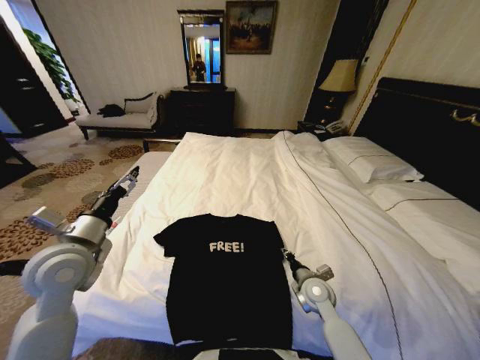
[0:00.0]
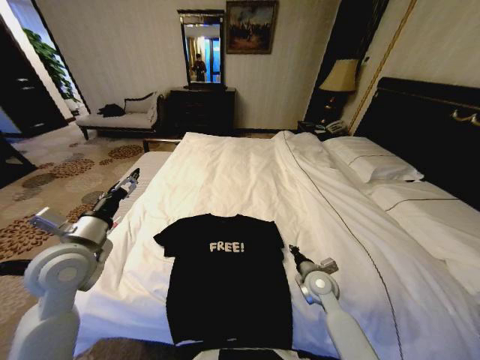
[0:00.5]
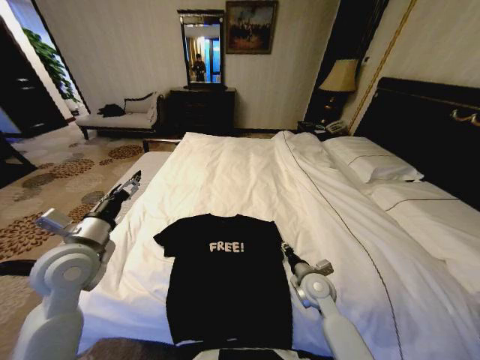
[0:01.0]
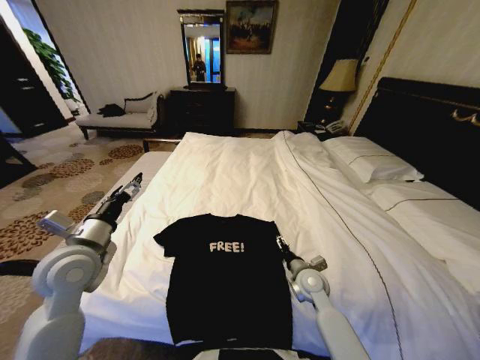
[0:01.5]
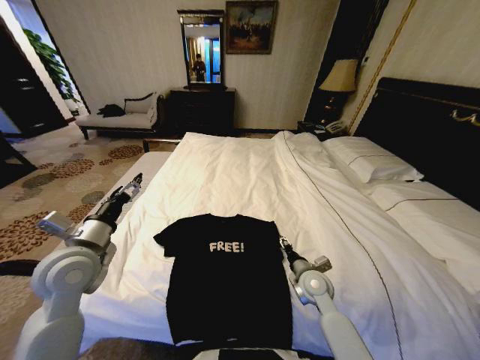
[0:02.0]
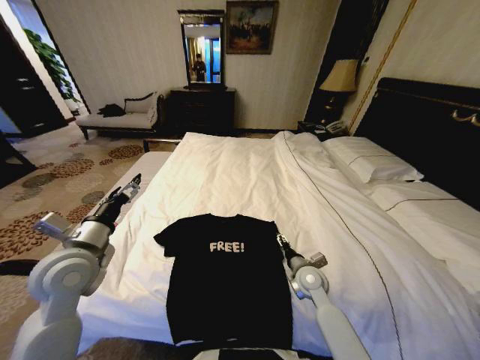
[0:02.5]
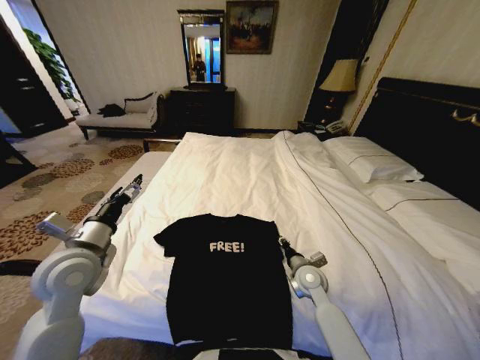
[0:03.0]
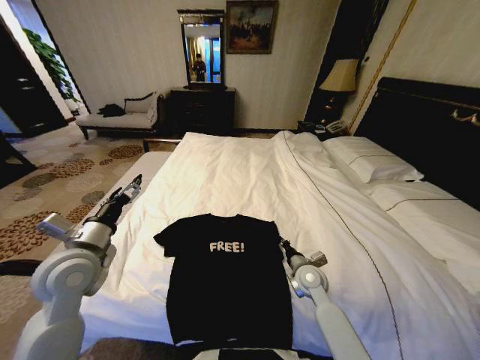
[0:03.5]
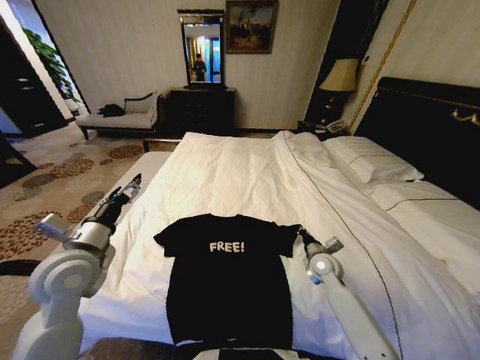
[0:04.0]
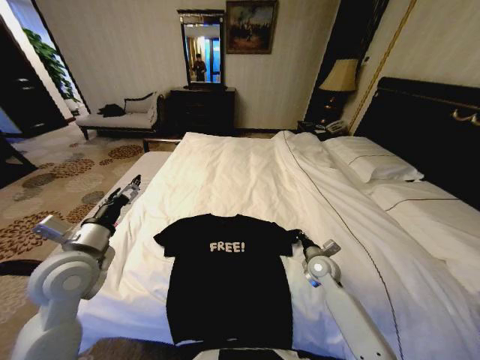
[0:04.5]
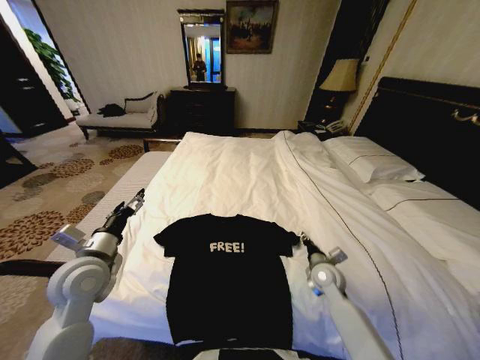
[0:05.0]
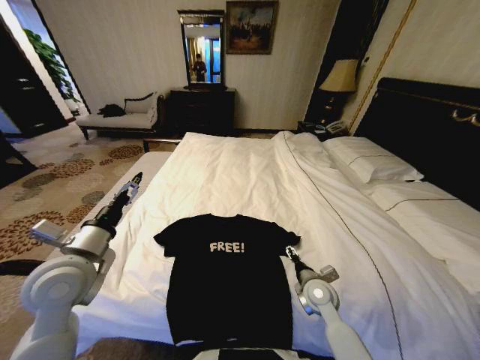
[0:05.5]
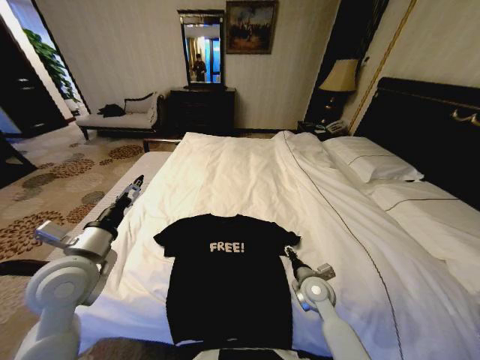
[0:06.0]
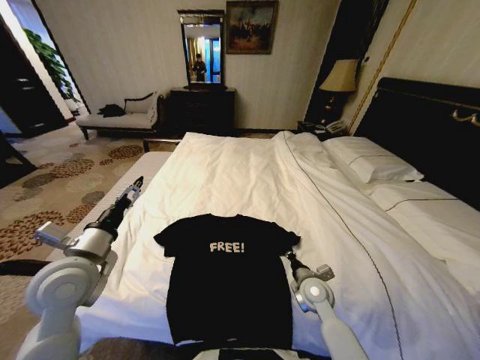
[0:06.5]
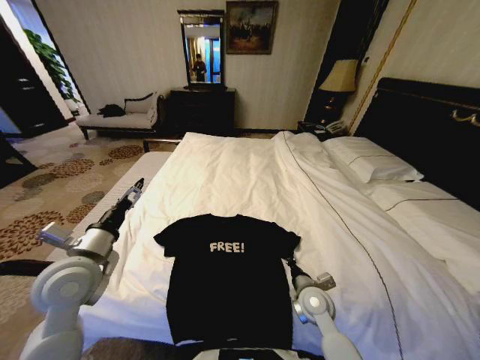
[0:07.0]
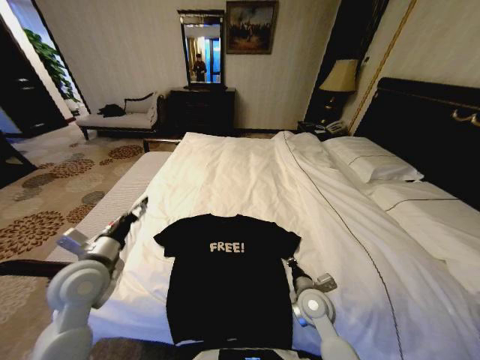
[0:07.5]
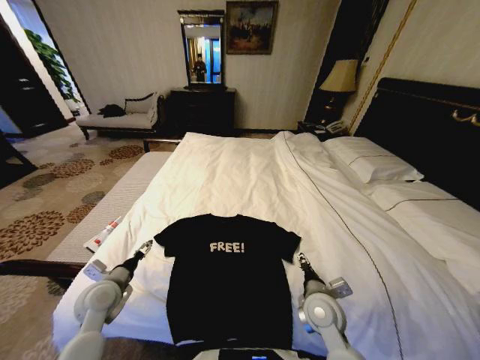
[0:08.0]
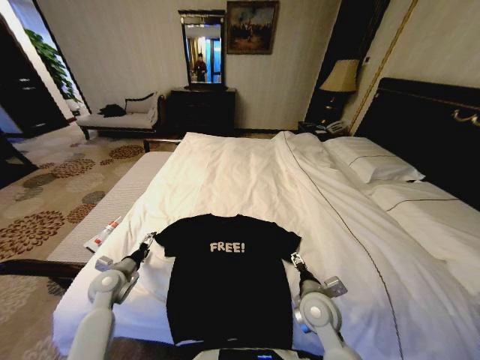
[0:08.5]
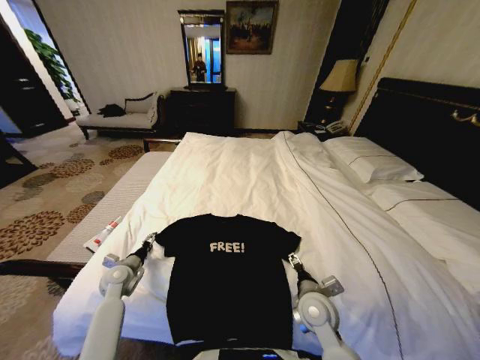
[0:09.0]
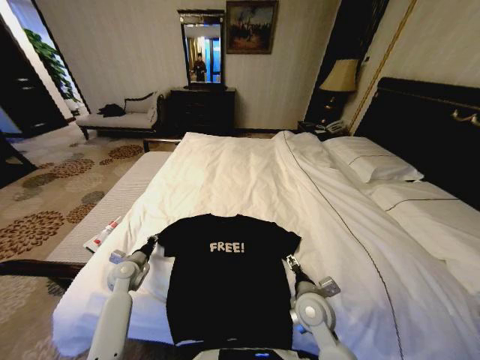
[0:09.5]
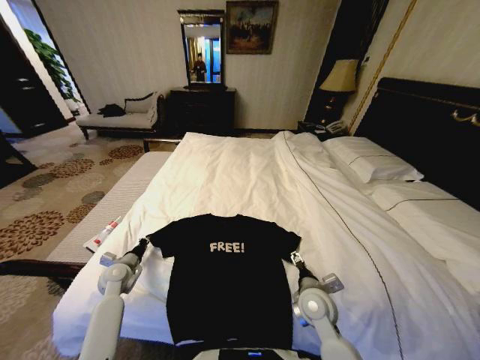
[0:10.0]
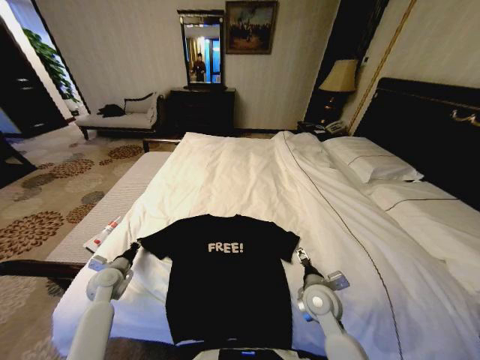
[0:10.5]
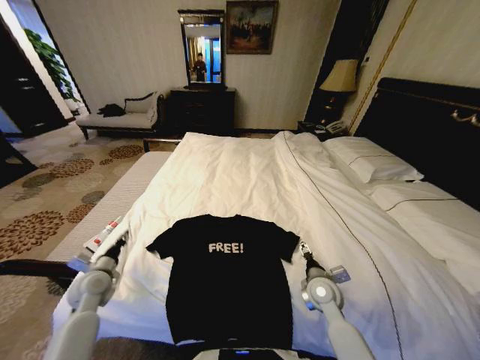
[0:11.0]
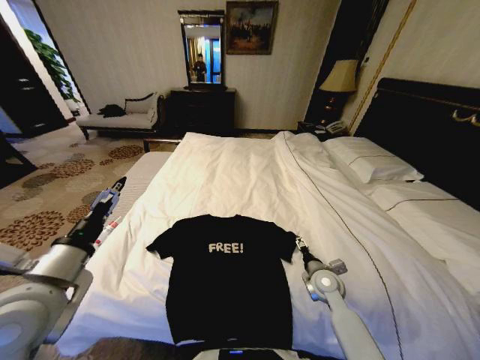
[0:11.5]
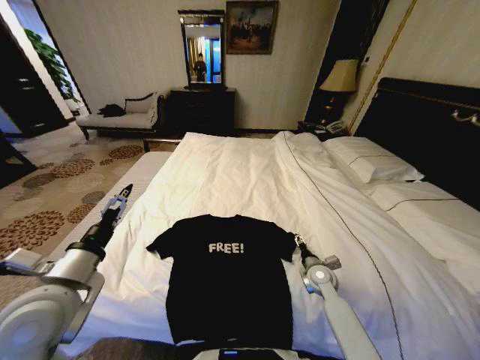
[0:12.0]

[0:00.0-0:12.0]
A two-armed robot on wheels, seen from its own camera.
Task of the whole recording: Fold the clothes on the bed.
0.0 to 2.0 s: The right gripper opens up.
2.0 to 4.0 s: The right gripper shifts about 10 cm to the right and forward, and closes up.
4.0 to 6.0 s: The right gripper heads backward and to the left, covering approximately 10 cm, and opens its fingers.
6.0 to 8.0 s: The right gripper is displaced backward by about 5 cm, and closes, then reopens. Meanwhile the left gripper shifts roughly 15 cm downward.
8.0 to 10.0 s: The left gripper shifts roughly 10 cm forward and downward, and closes, while the right gripper opens up.
10.0 to 12.0 s: The left gripper shifts about 30 cm upward and backward, and opens up; the right gripper shifts approximately 15 cm forward, to the right and downward.

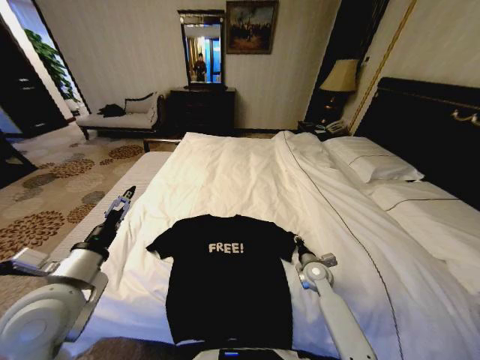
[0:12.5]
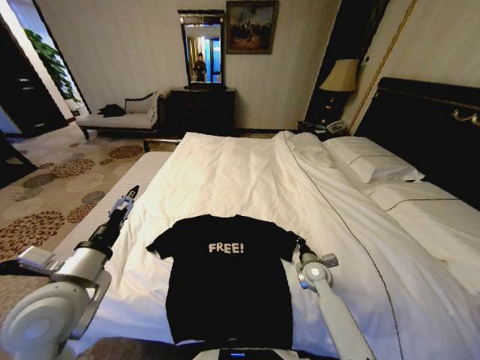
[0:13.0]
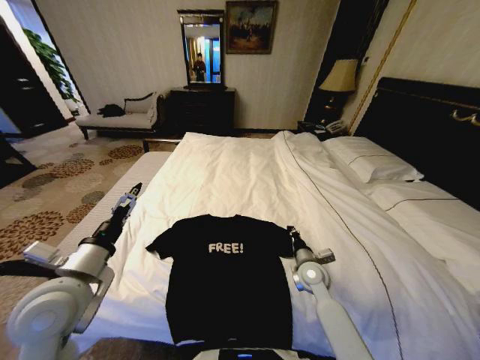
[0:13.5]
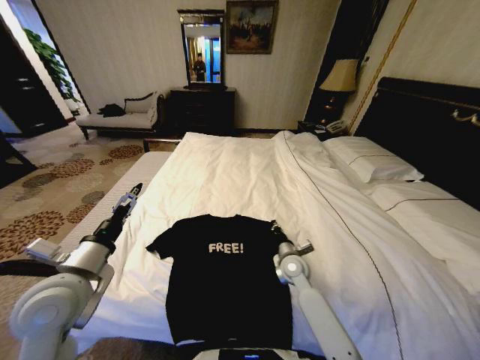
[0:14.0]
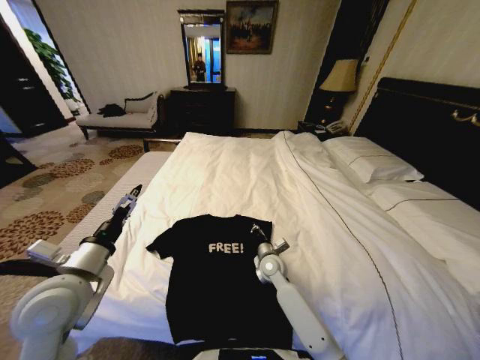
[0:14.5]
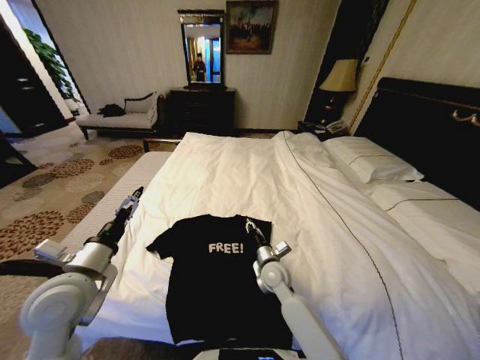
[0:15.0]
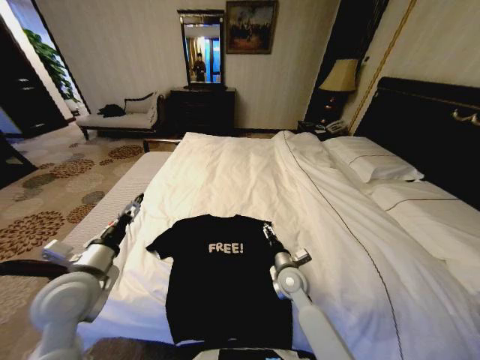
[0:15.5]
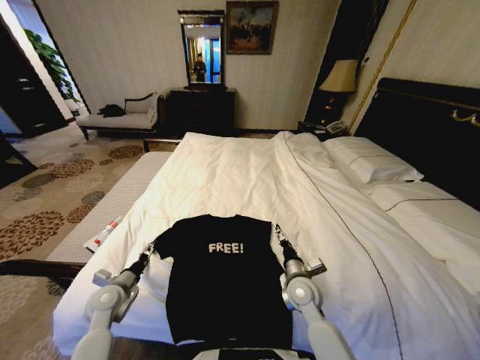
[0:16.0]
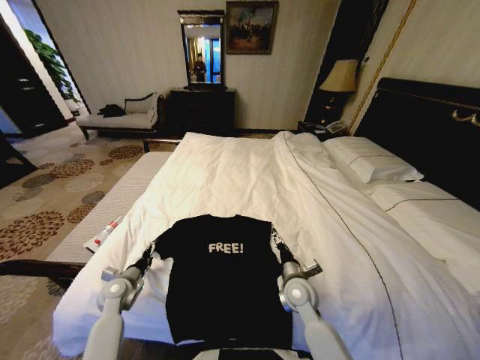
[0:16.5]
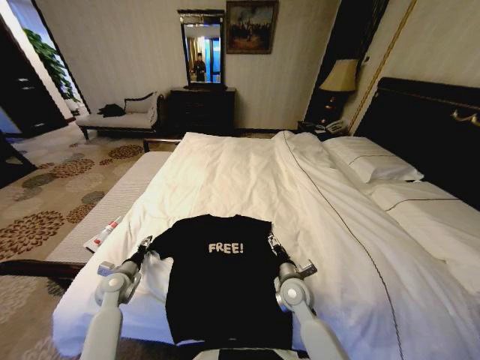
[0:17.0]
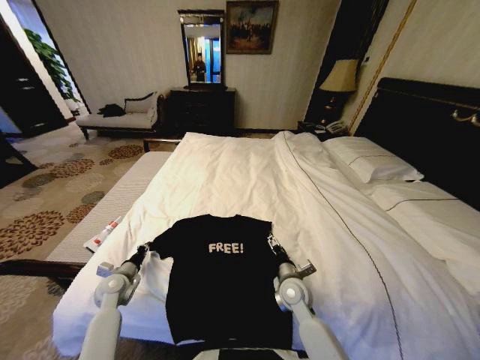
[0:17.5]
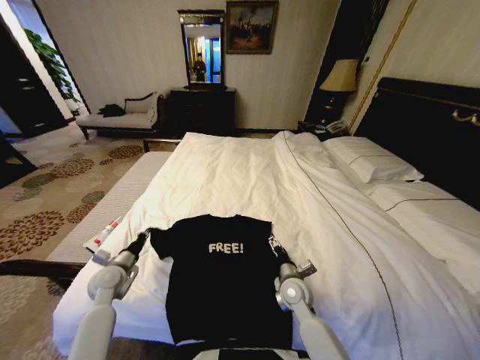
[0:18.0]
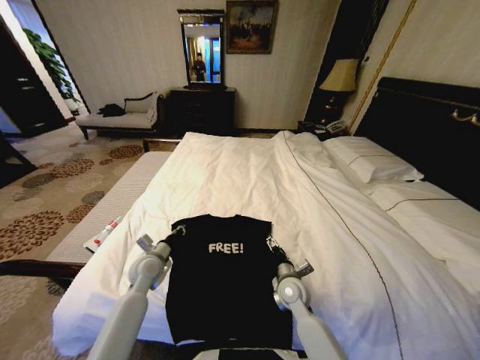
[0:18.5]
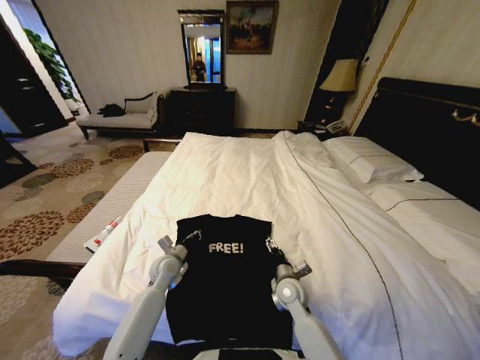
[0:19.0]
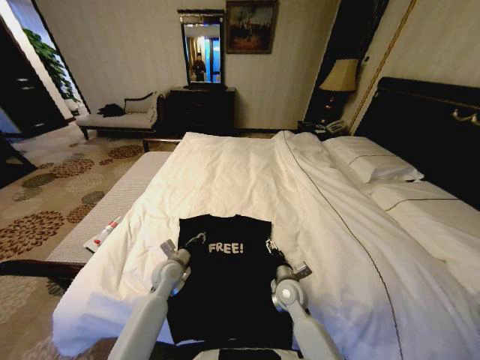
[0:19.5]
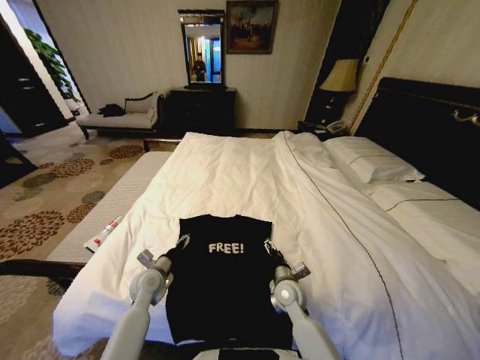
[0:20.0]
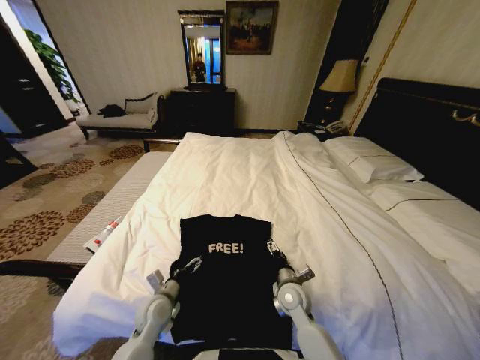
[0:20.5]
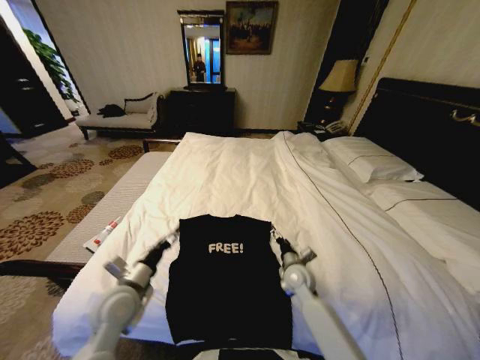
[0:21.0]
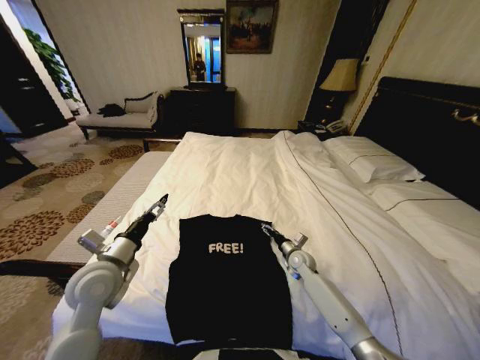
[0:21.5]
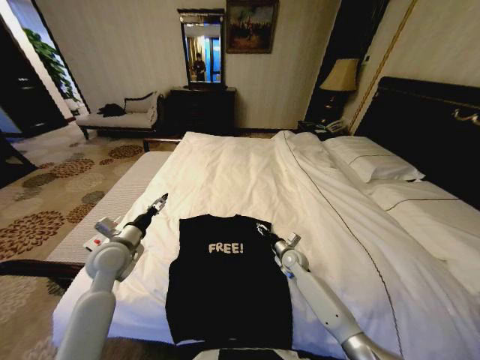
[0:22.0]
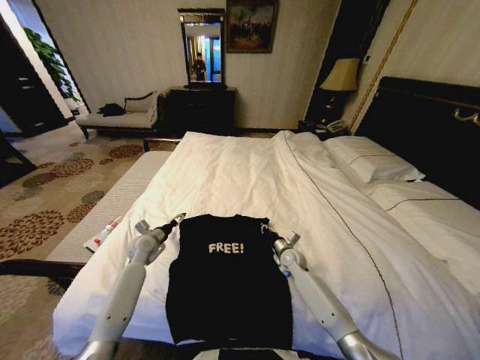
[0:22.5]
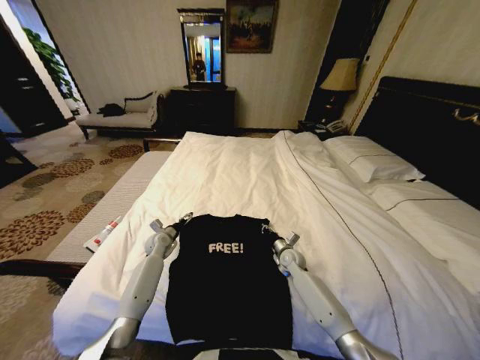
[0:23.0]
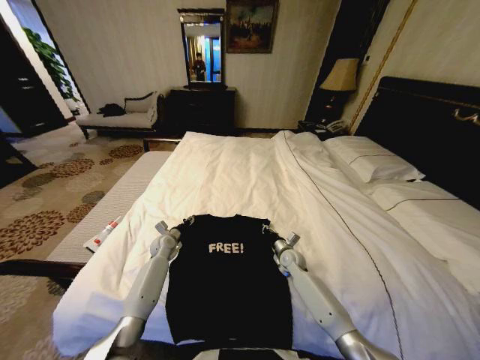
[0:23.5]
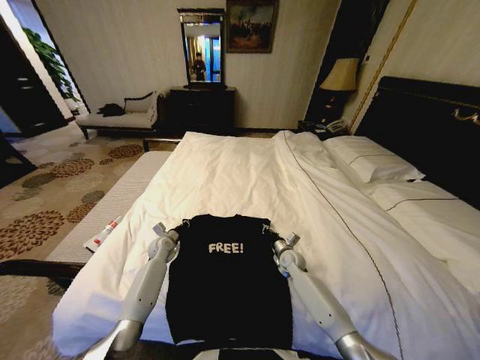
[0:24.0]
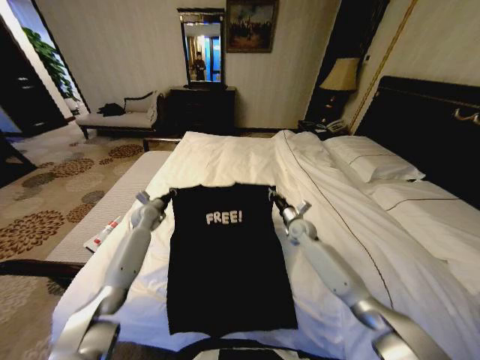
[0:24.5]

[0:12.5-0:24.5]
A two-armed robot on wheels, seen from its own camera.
Task of the whole recording: Fold the clothes on the bed.
12.5 to 14.5 s: The right gripper shifts roughly 15 cm to the left, and closes.
14.5 to 16.5 s: The left gripper heads downward, covering approximately 25 cm, while the right gripper moves backward and to the right, some 10 cm, and opens up.
16.5 to 18.5 s: The left gripper shifts some 10 cm to the right and upward, and closes its fingers.
18.5 to 20.5 s: The left gripper travels backward by roughly 10 cm, and opens up.
20.5 to 22.5 s: The right gripper goes roughly 15 cm forward and to the right, and closes its fingers. Meanwhile the left gripper is displaced forward and to the left by roughly 20 cm.
22.5 to 24.5 s: The right gripper goes roughly 10 cm upward and forward, while the left gripper moves forward and upward, approximately 10 cm, and closes its fingers.

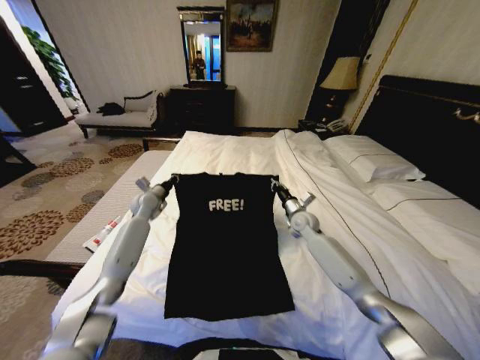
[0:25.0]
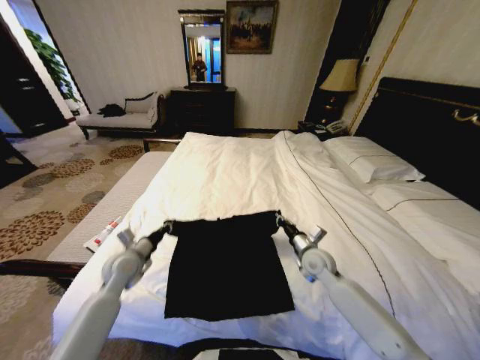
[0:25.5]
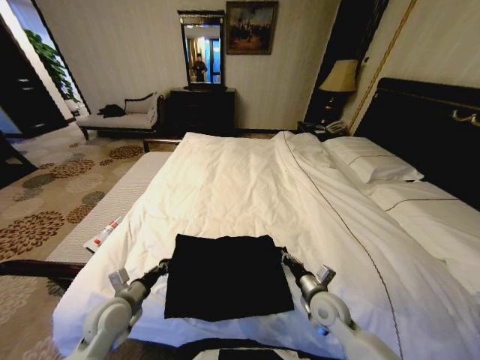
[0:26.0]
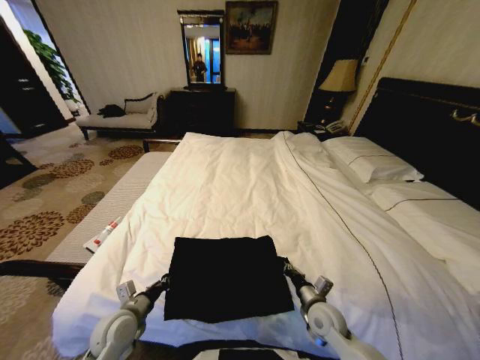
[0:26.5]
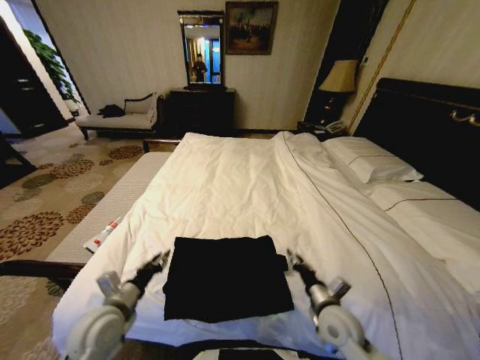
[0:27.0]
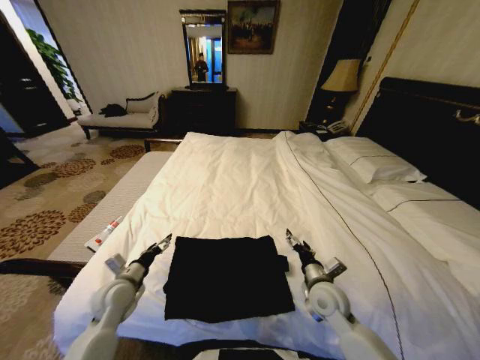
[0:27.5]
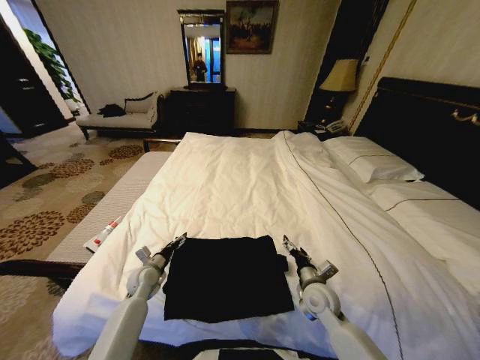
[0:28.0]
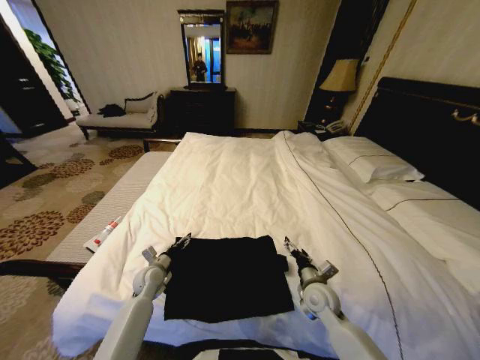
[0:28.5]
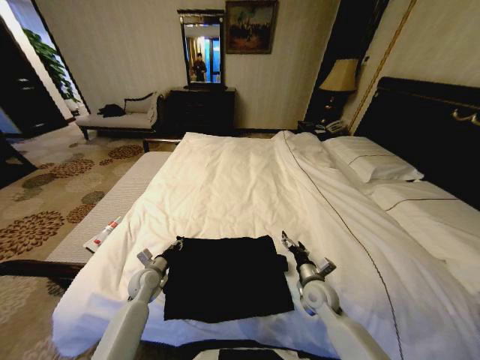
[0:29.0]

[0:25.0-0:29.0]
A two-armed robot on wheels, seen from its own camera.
Task of the whole recording: Fold the clothes on the bed.
25.0 to 27.0 s: Both grippers move backward, roughly 35 cm. The right gripper opens.
27.0 to 29.0 s: The right gripper goes roughly 10 cm forward, and opens, while the left gripper goes approximately 20 cm forward and downward, and opens, then closes once more.
